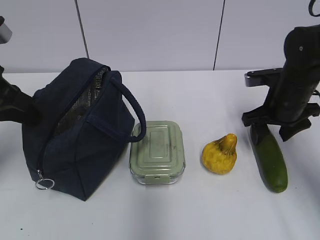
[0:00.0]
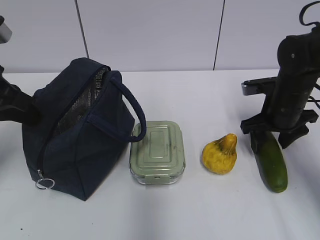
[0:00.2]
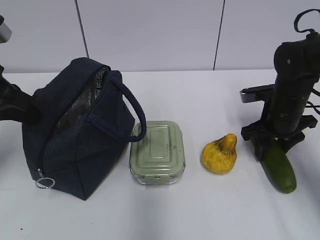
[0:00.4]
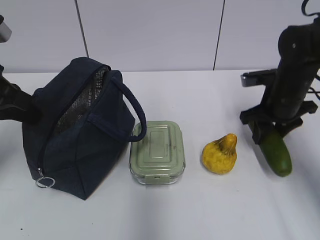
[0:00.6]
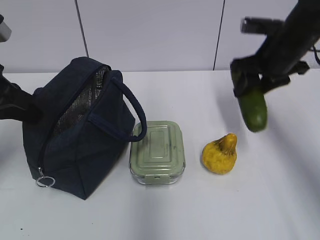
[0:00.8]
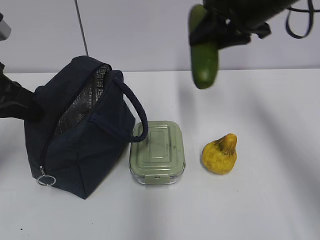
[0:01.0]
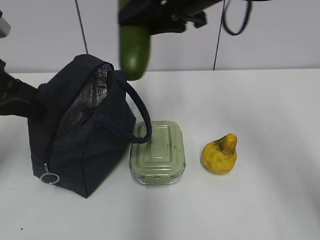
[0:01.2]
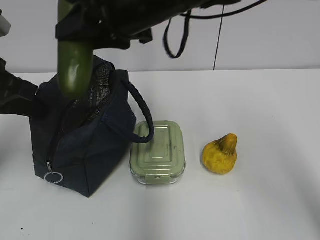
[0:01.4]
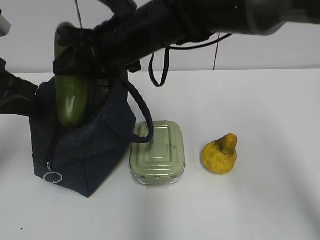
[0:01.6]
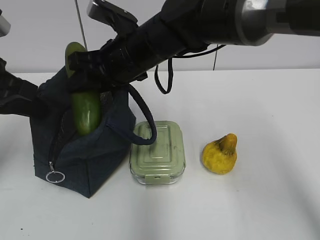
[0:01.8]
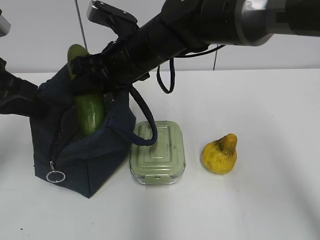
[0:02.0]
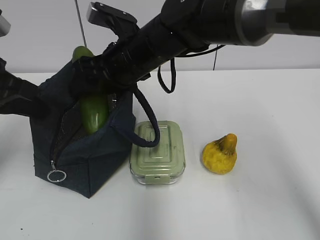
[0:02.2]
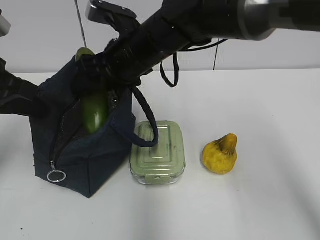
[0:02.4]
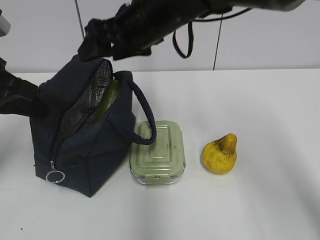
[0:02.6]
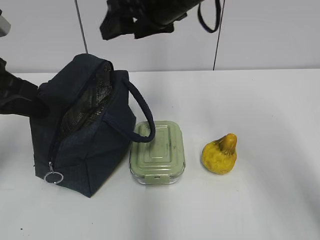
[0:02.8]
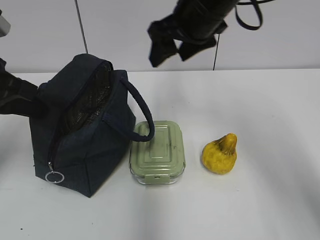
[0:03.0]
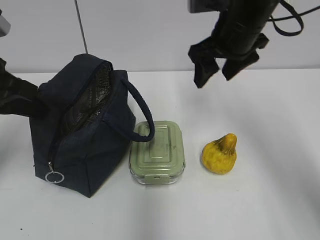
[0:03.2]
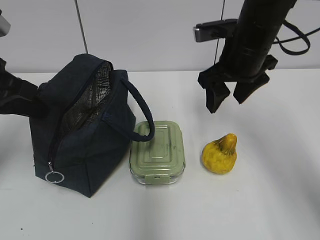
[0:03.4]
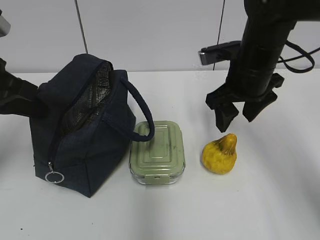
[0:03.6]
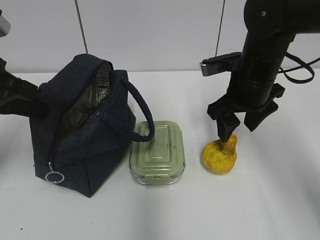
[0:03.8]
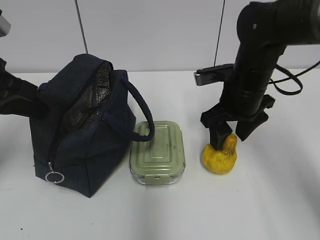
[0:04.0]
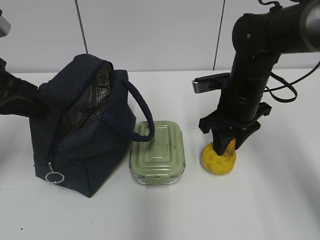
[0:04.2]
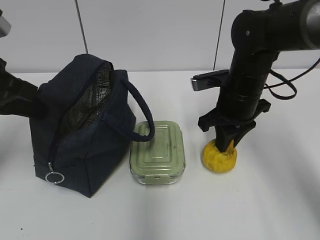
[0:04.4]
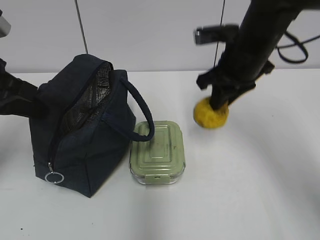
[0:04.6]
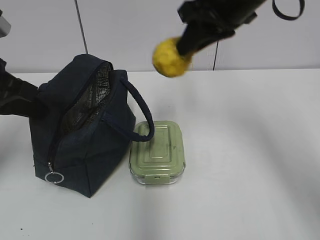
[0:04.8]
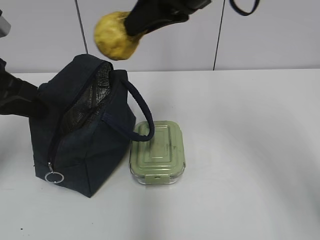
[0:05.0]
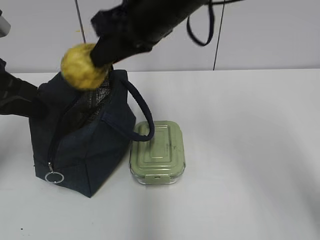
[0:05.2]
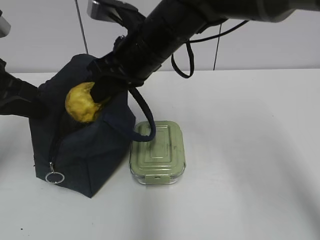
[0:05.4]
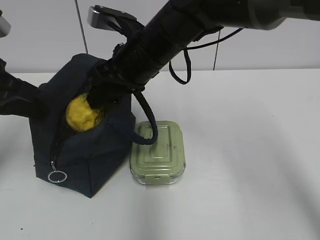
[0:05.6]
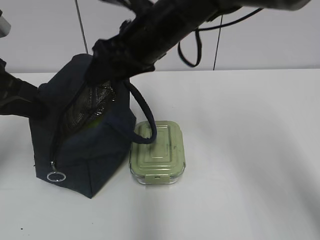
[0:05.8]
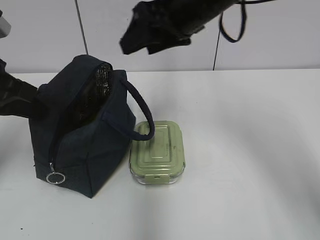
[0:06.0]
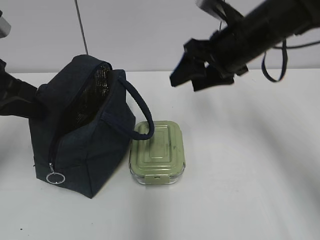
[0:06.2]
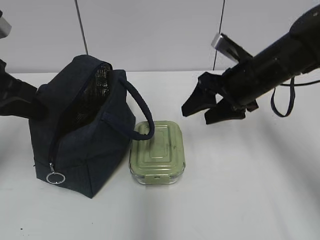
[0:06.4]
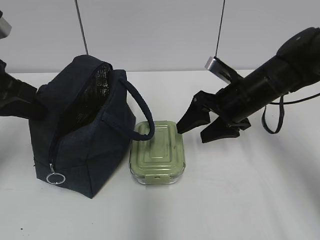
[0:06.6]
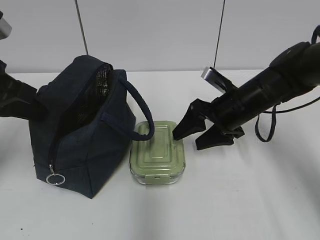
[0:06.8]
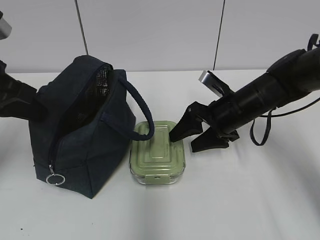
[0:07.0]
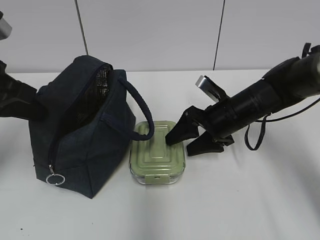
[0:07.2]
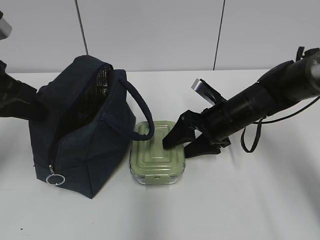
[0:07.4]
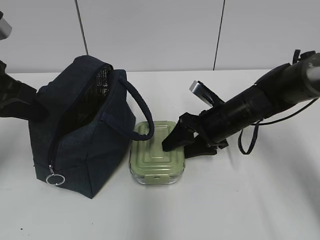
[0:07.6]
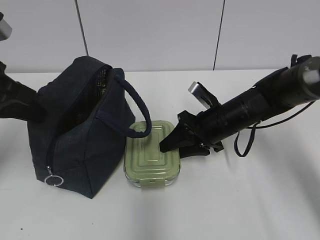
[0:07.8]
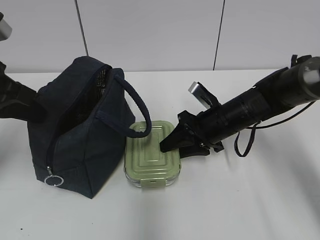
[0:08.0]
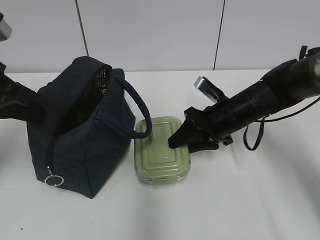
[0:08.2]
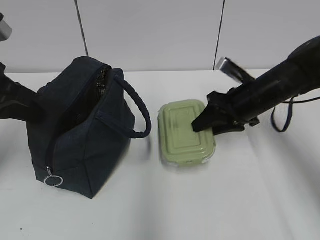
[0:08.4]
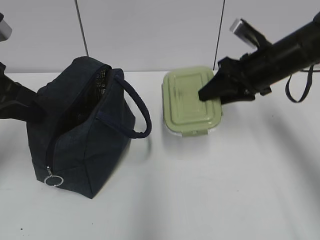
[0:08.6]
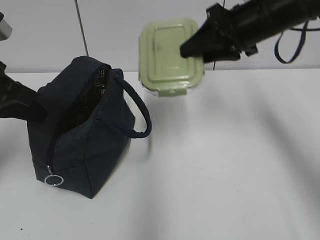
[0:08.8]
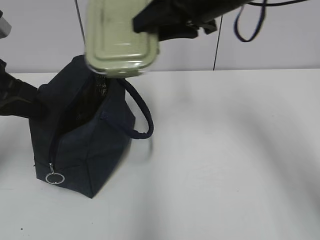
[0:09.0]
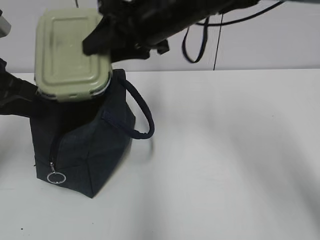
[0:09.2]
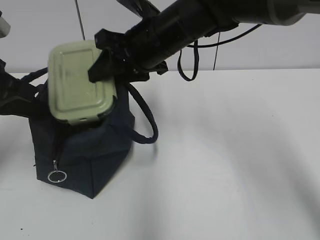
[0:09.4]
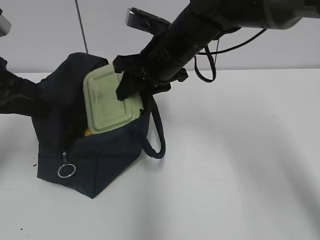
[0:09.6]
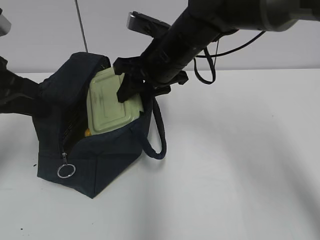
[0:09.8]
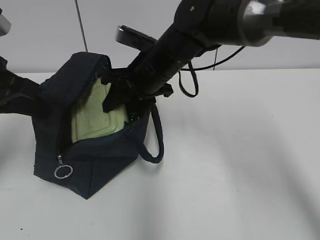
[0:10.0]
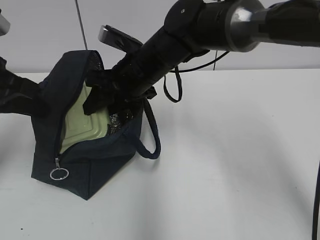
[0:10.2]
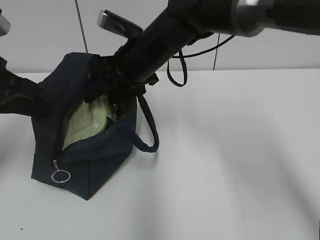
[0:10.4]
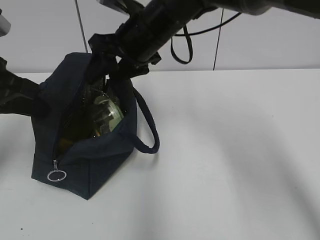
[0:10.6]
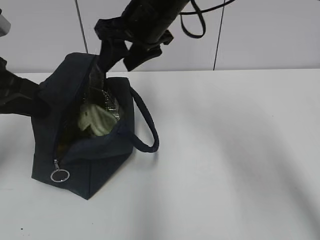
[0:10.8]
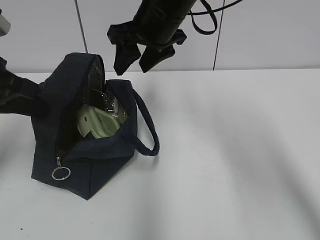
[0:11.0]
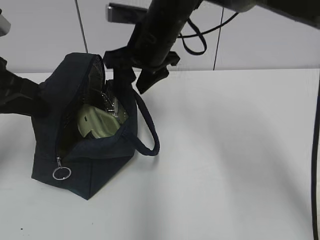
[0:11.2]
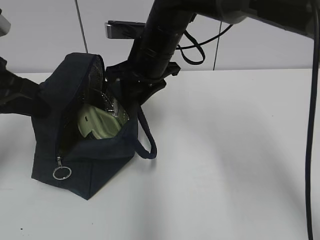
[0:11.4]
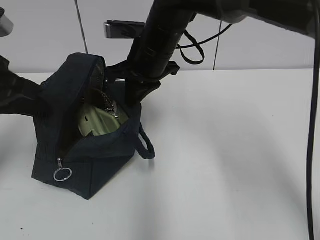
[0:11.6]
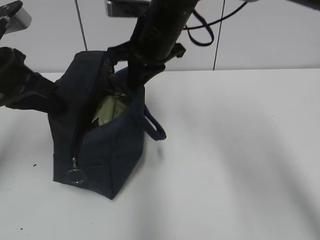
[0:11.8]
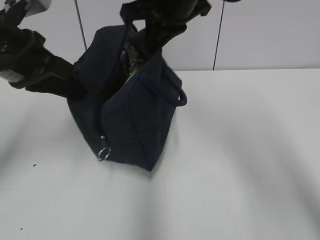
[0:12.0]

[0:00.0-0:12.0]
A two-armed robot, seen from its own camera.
Step, 0:01.8 to 0:02.6: Place it into the bag with your right hand.
Step, 0:03.0 to 0:04.2: Grab the pear with your right hand.
Step, 0:04.4 to 0:05.6: Place it into the bag with your right hand.
Step, 0:05.8 to 0:07.8: Grab the lunch box with your right hand.
Step, 0:11.0 to 0:11.4: Grab the lunch bag with your right hand.
0:00.0 to 0:01.6: The right gripper is displaced to the left and upward by about 30 cm.
0:01.6 to 0:03.0: The right gripper is displaced to the right by approximately 10 cm, and opens.
0:03.0 to 0:04.4: The right gripper travels downward by about 10 cm, and closes up.
0:04.4 to 0:06.0: The right gripper swings up and down, approximately 15 cm each way, with 2 reversals, and opens.
0:06.0 to 0:07.6: The right gripper travels downward by some 20 cm.
0:07.6 to 0:09.0: The right gripper travels upward by some 25 cm.
0:09.0 to 0:10.4: The right gripper travels downward and to the left by approximately 10 cm.
0:10.4 to 0:12.0: The left gripper goes roughly 5 cm to the right. The right gripper moves up and down over about 10 cm, changing direction 2 times, and closes its fingers.

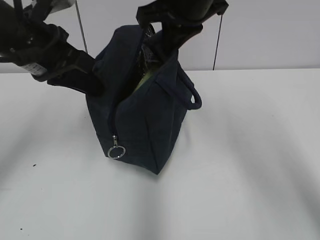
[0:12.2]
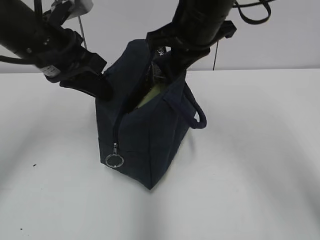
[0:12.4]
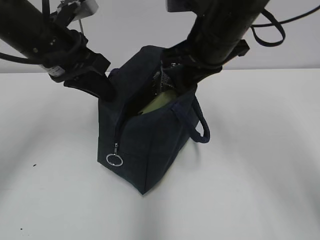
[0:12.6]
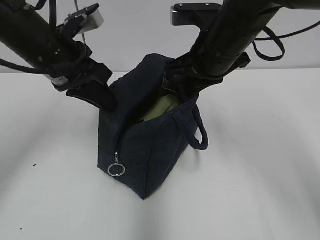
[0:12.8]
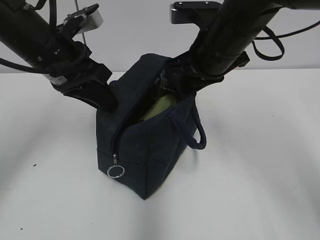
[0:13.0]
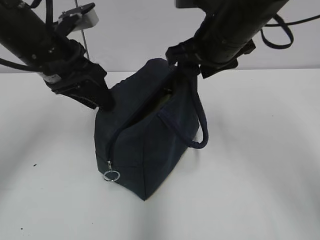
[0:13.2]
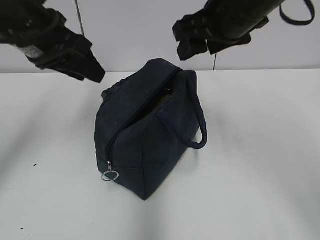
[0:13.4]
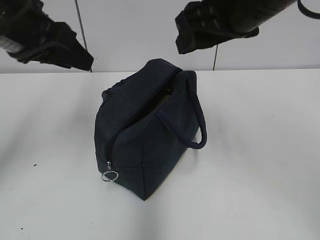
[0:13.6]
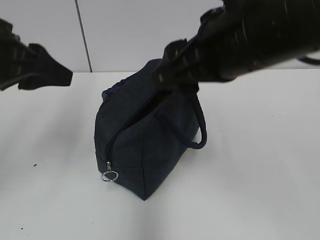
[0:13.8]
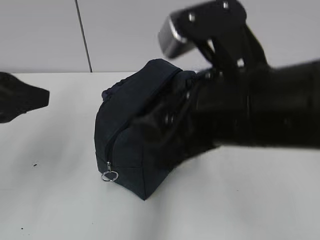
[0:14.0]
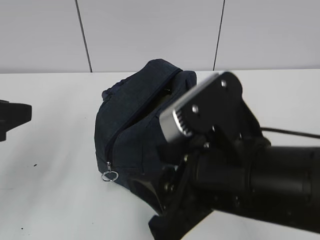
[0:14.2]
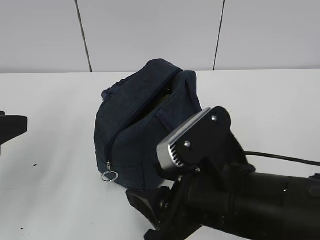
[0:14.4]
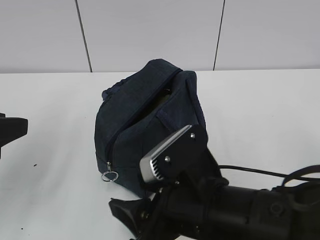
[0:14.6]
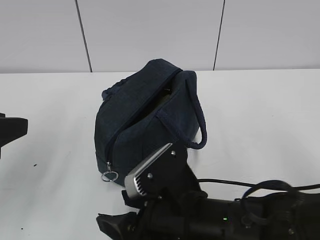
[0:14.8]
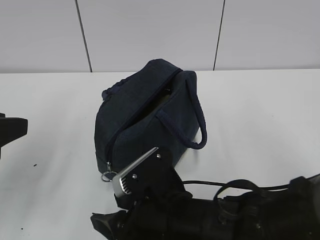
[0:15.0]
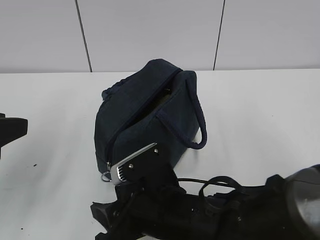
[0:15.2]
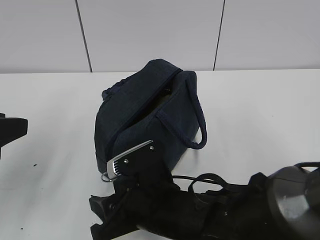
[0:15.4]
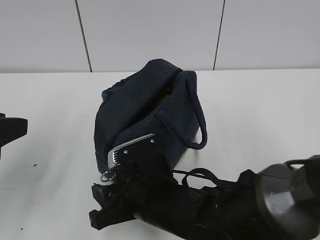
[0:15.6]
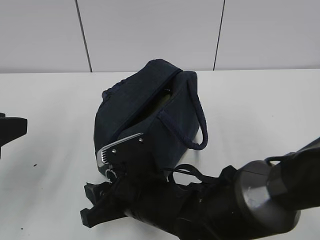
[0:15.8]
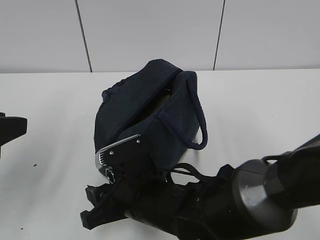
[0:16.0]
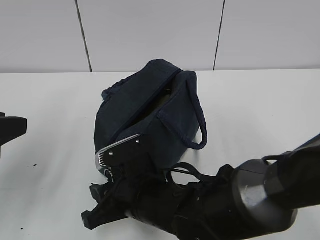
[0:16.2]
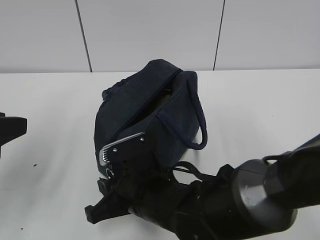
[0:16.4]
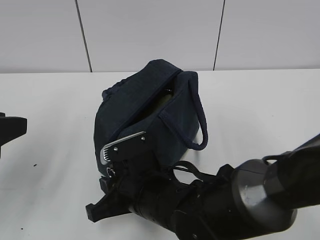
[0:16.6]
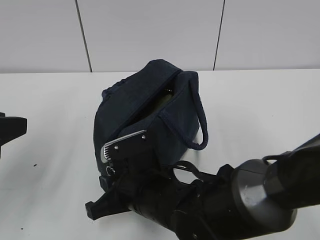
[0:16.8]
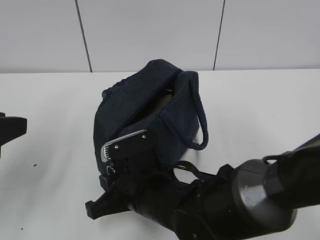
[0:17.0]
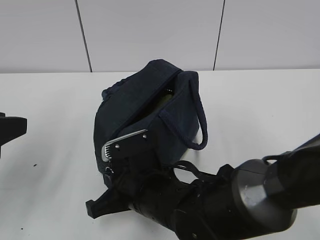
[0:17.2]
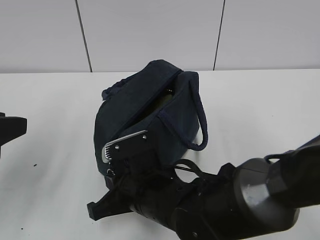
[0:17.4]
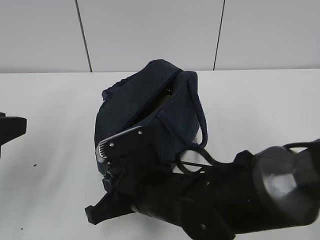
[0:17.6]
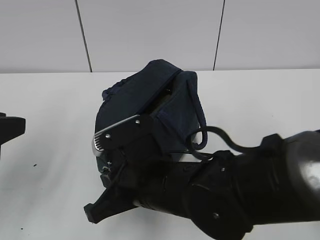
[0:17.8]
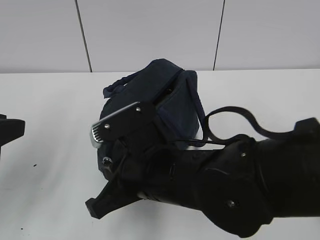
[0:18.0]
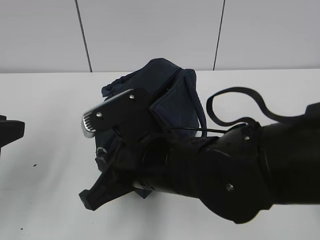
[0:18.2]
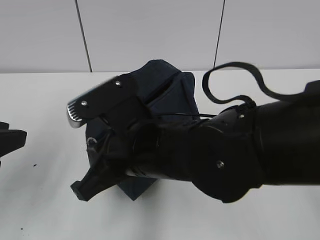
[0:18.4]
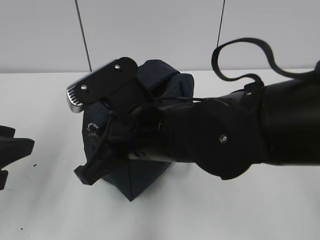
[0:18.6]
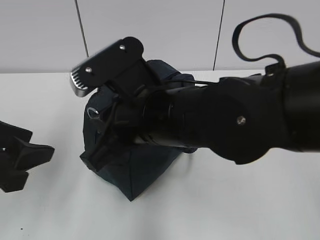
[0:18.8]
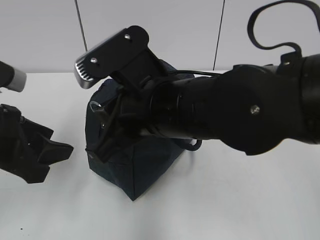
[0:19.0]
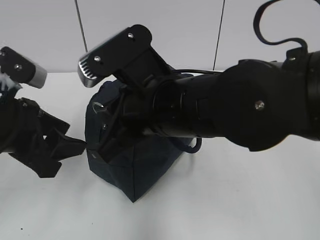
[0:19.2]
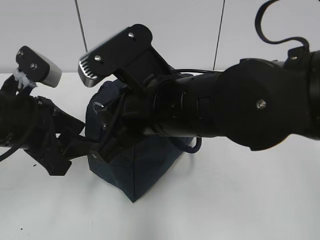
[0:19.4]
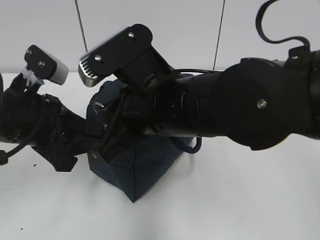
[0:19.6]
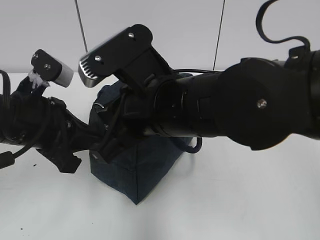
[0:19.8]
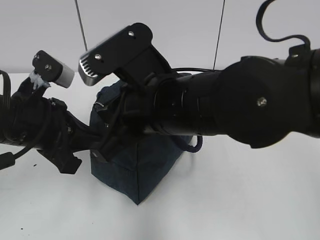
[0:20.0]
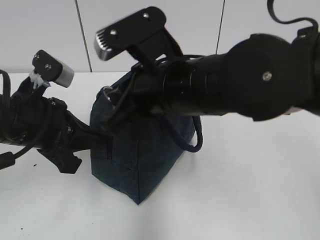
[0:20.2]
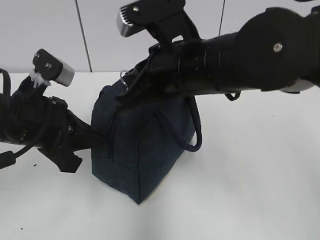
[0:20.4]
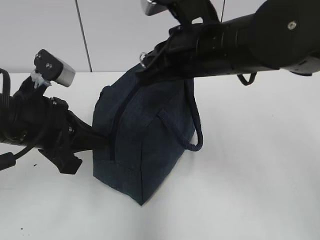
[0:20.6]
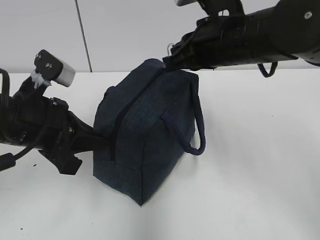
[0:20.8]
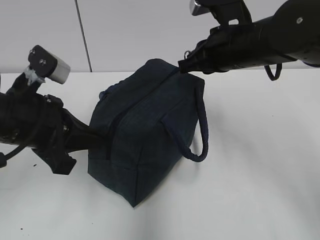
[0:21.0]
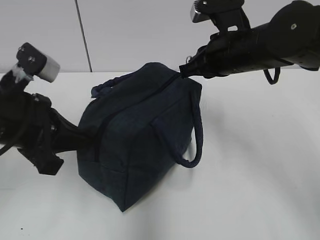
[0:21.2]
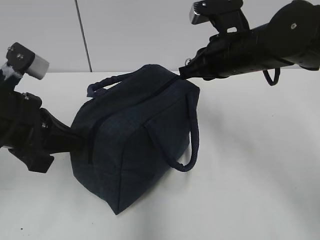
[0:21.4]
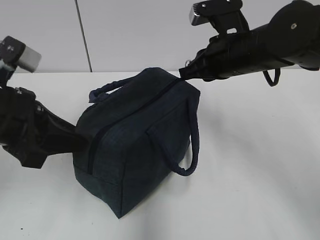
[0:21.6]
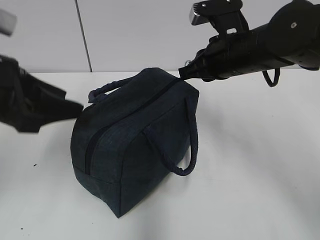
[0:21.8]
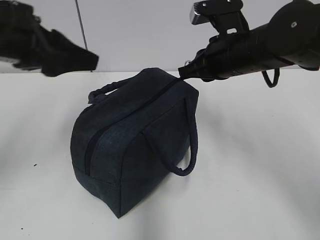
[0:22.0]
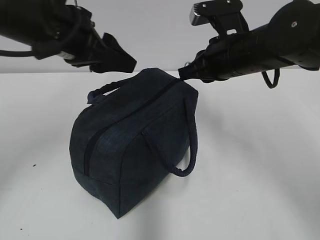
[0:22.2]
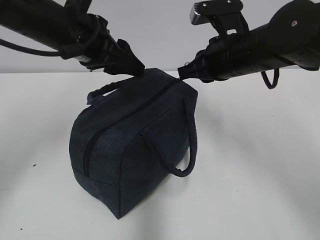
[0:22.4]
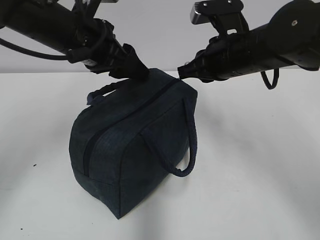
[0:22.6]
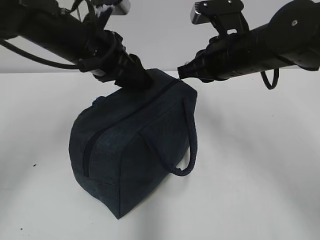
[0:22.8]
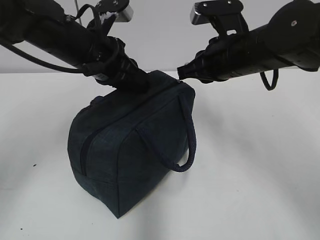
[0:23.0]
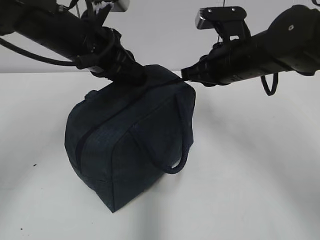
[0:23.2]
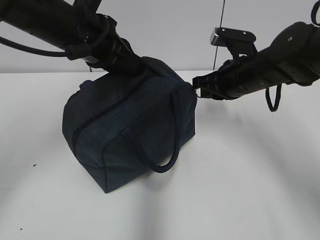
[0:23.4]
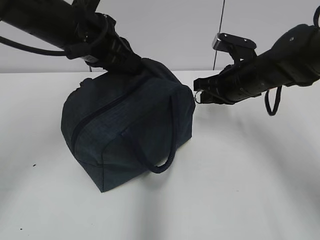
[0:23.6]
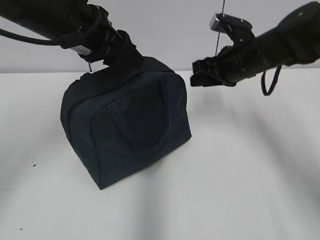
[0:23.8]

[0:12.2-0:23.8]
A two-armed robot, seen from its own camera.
Step, 0:12.2 to 0:13.0: Move the lunch bag to the right.
Step, 0:13.2 to 0:19.8: Grab the lunch bag with your left hand.
Step, 0:20.0 to 0:23.6: Pull the zipper with your right hand.
0:12.2 to 0:13.6: The right gripper heads backward, covering some 10 cm, and opens, while the left gripper ends up roughly 5 cm from where it was, and opens.
0:13.6 to 0:15.0: The left gripper shifts approximately 15 cm backward, downward and to the left, while the right gripper shifts approximately 25 cm downward and backward.
0:15.0 to 0:16.6: The right gripper changes place by roughly 5 cm, and closes.
0:16.6 to 0:18.0: The right gripper is displaced upward by some 10 cm.
0:18.0 to 0:19.4: The right gripper heads upward, covering some 10 cm. Meanwhile the left gripper heads forward and to the right, covering roughly 10 cm, and opens its fingers.
0:19.4 to 0:21.0: The left gripper closes up; the right gripper goes approximately 15 cm forward and to the right.
0:21.0 to 0:22.4: The left gripper travels forward, upward and to the right by roughly 15 cm, and opens up.
0:22.4 to 0:23.8: The left gripper closes and opens again, while the right gripper changes place by approximately 5 cm, and opens up.
